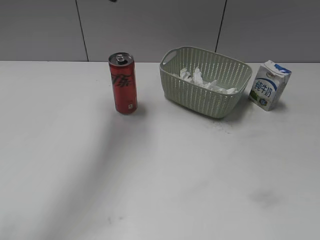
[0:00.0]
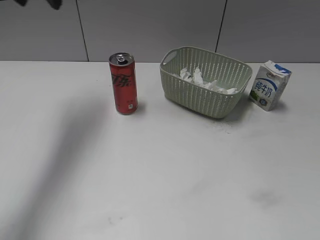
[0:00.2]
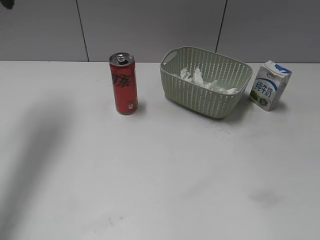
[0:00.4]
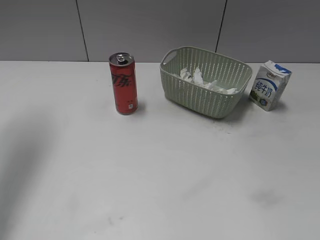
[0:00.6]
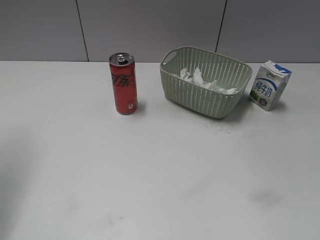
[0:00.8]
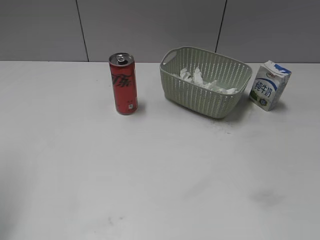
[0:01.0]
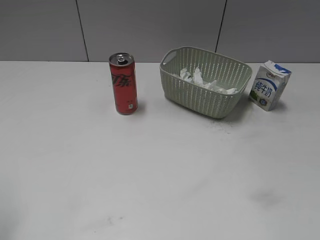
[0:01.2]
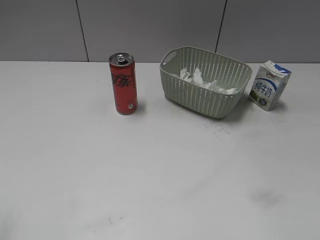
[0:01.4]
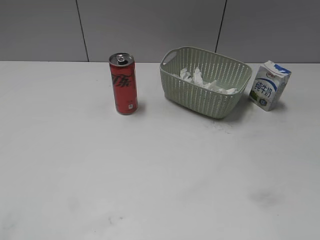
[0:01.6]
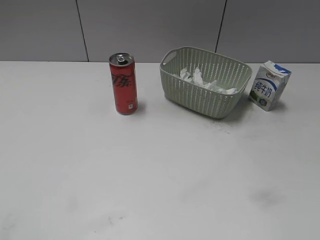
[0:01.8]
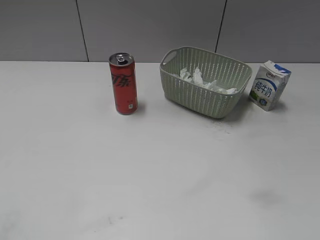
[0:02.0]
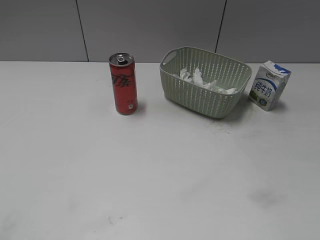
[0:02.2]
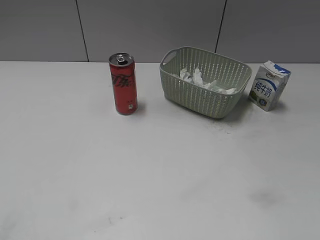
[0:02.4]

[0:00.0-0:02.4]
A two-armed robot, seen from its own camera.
0.0 to 1.2 s: The left gripper heads backward and to the left, covering some 30 cm.

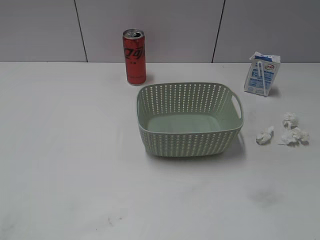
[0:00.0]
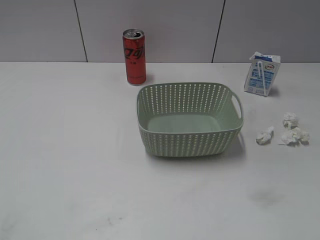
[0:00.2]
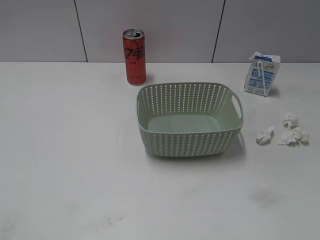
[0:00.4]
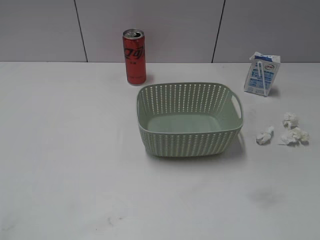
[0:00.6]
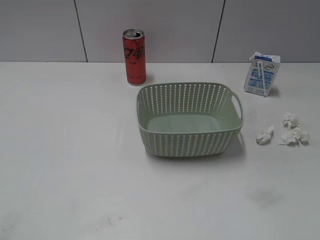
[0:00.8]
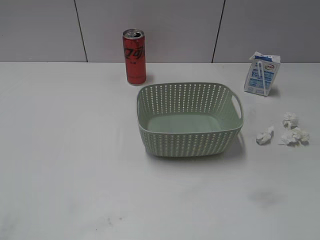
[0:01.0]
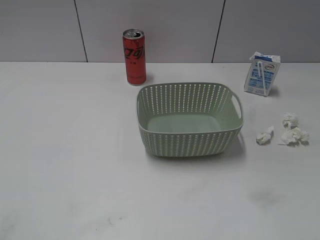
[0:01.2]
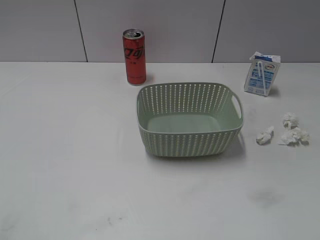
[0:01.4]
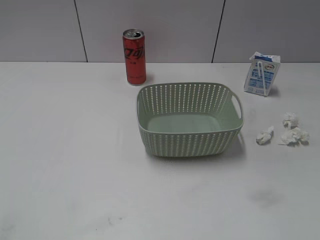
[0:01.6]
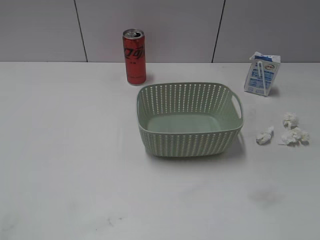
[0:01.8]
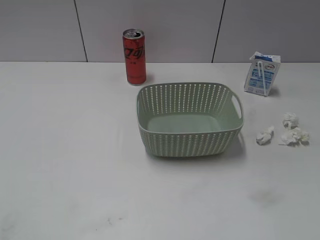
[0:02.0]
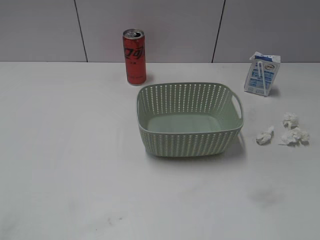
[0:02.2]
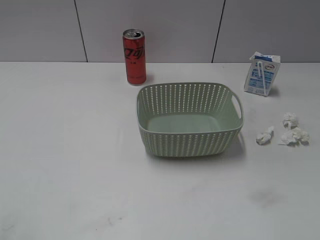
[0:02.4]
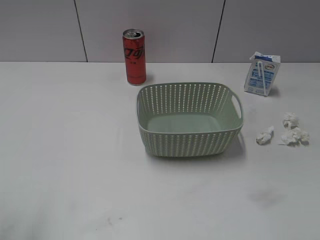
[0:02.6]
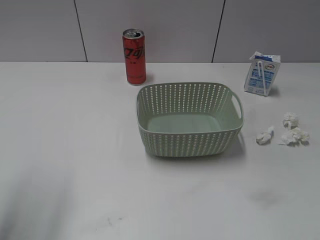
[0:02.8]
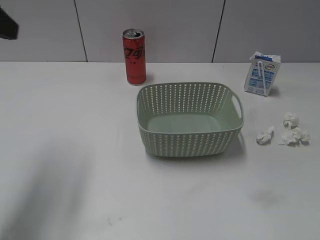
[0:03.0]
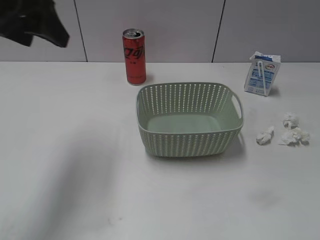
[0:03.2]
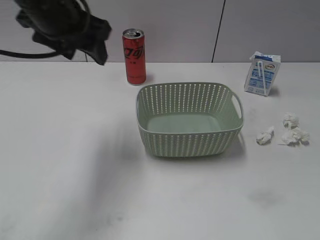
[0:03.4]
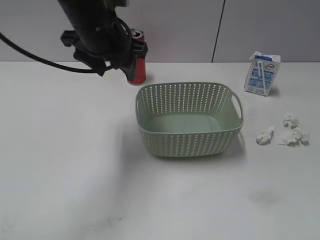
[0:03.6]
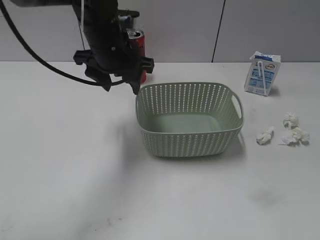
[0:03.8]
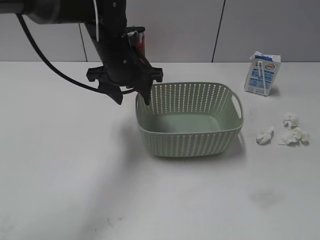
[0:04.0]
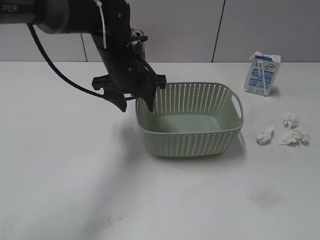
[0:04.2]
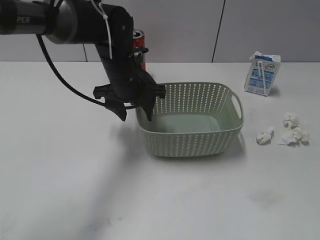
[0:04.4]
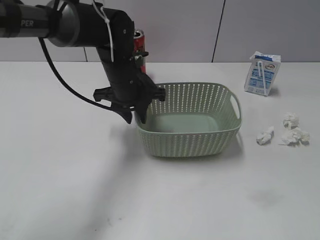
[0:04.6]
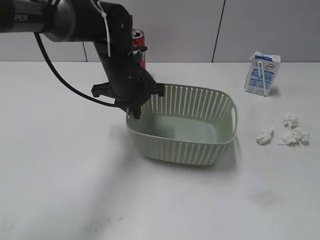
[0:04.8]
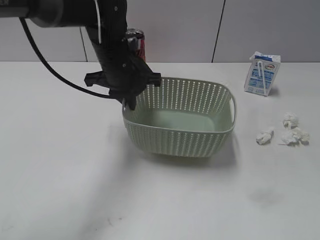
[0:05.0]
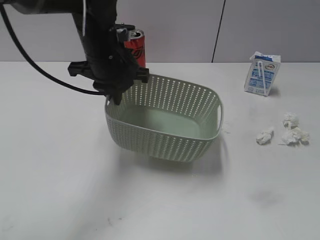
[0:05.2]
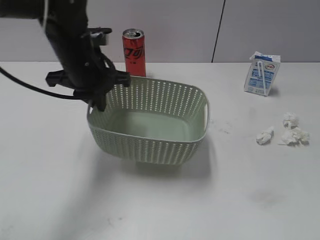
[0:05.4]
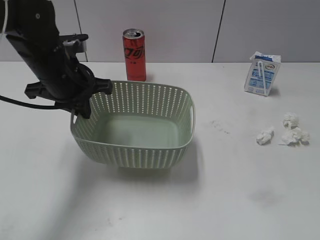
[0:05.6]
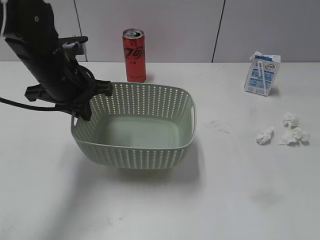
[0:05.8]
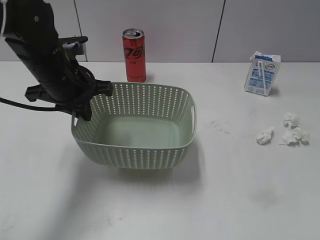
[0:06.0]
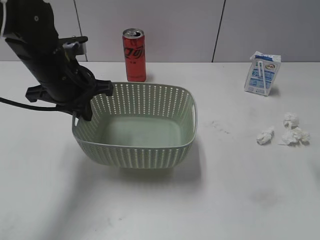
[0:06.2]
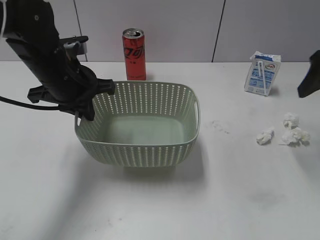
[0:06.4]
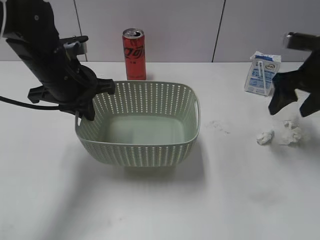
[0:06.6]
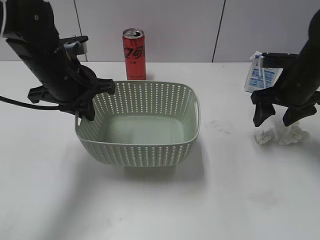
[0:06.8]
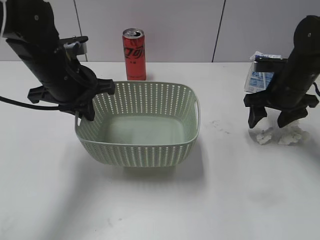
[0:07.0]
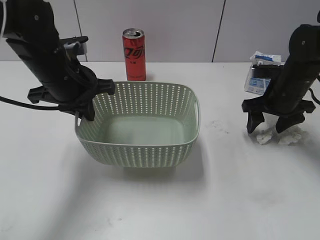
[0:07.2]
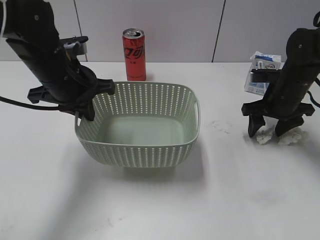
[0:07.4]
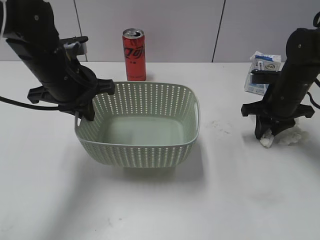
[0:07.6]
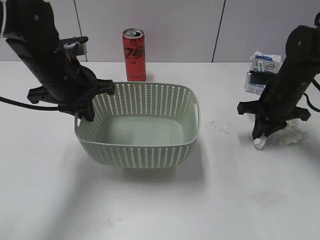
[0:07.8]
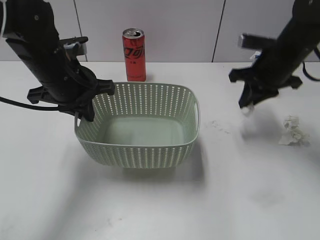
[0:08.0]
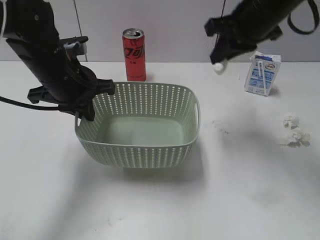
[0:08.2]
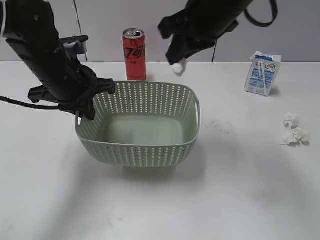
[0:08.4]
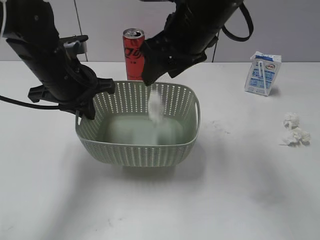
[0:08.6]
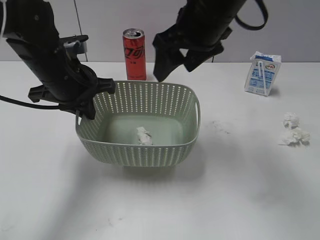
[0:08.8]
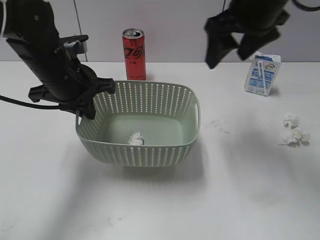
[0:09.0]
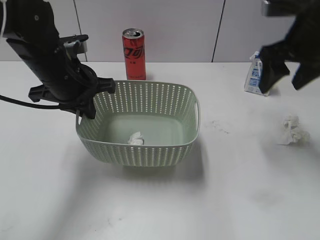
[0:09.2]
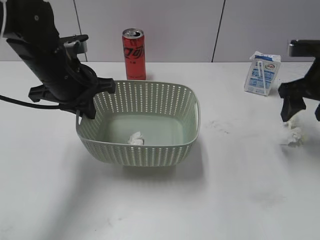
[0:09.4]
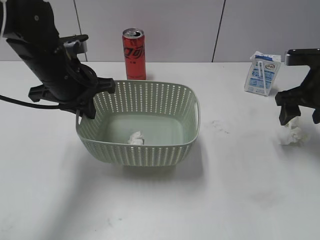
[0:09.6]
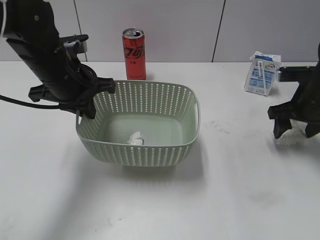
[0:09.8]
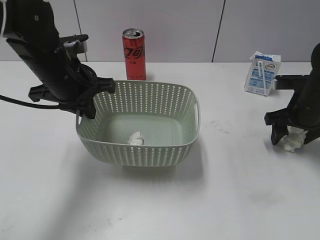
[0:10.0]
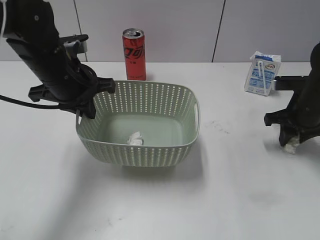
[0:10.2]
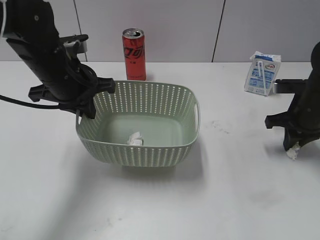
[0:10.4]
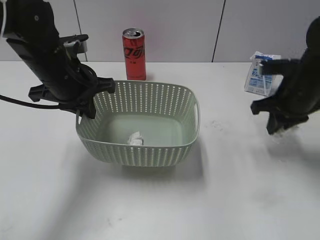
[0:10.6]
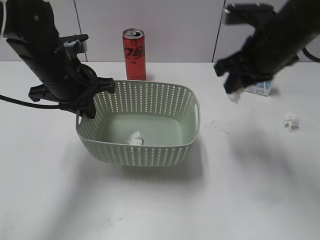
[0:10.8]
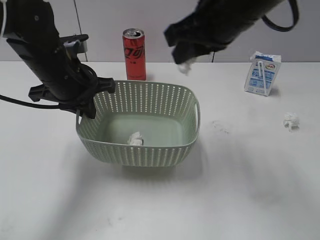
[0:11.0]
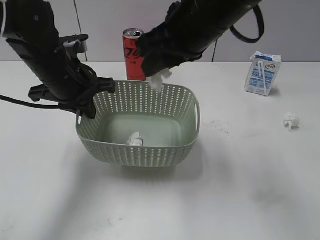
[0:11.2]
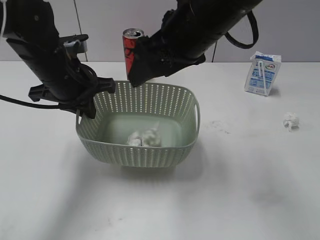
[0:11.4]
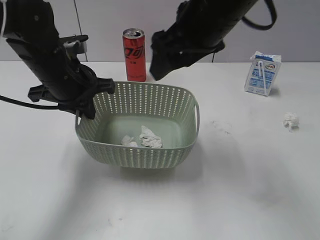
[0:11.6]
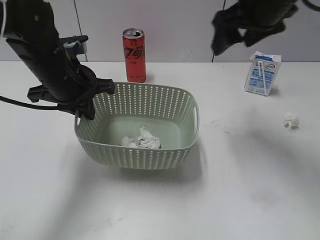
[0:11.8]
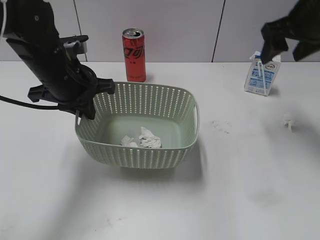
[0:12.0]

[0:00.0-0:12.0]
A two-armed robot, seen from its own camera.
Step, 3.0 to 4.8 s: Grasp the basket with left gripper.
Step, 5.0 to 5.6 s: Lift the basket with left gripper.
Step, 5.8 to 7.6 s: Grasp the waste paper with right gripper.
Step, 7.8 to 8.6 s: Place the waste paper in the basket with right gripper.
Step, 8.8 to 10.6 s: Grasp the waste paper with right gripper.
Step, 10.8 to 11.6 s: Place the waste paper in the basket with right gripper.
1.6 to 3.0 s: The left gripper goes some 25 cm forward.
3.0 to 4.4 s: The left gripper shifts roughly 30 cm to the right, downward and forward.
4.4 to 6.0 s: The right gripper is displaced forward by roughly 15 cm, while the left gripper shifts approximately 10 cm to the left and backward, and closes its fingers.
6.0 to 7.6 s: The right gripper shifts about 30 cm forward and downward, and closes.
7.6 to 9.0 s: The right gripper goes approximately 25 cm upward and to the left, and opens.
9.0 to 10.4 s: The right gripper shifts approximately 25 cm downward and to the right, and closes its fingers.
10.4 to 12.0 s: The right gripper heads upward, covering roughly 15 cm, moves approximately 25 cm to the left and comes back, and opens up.

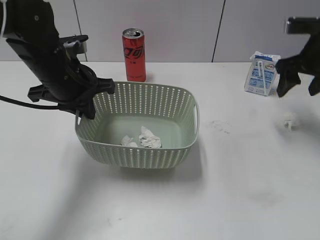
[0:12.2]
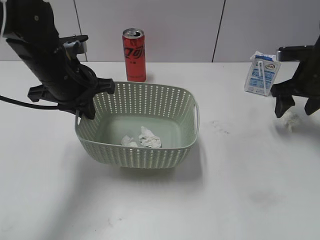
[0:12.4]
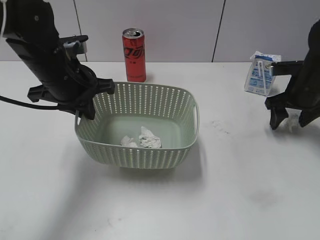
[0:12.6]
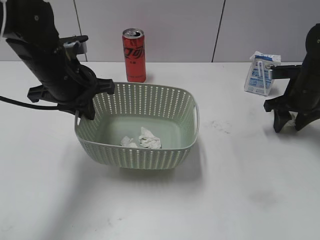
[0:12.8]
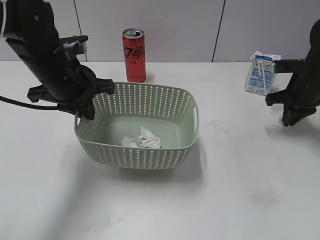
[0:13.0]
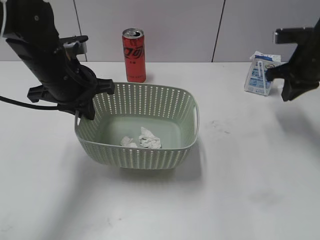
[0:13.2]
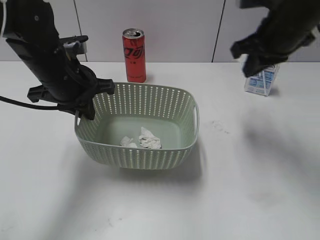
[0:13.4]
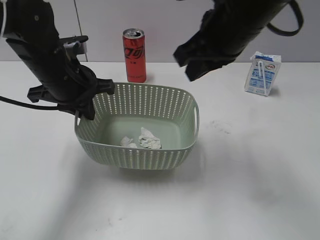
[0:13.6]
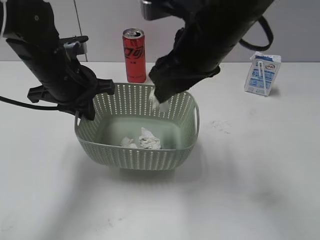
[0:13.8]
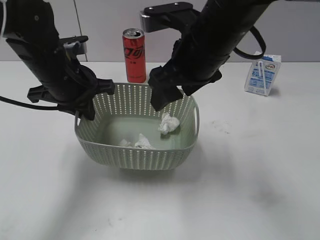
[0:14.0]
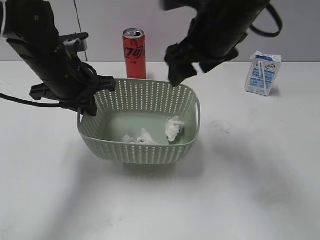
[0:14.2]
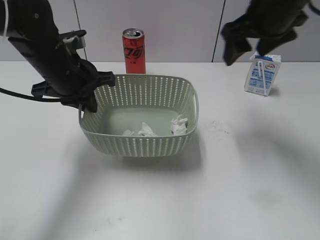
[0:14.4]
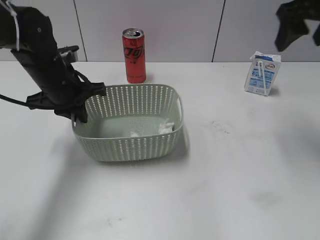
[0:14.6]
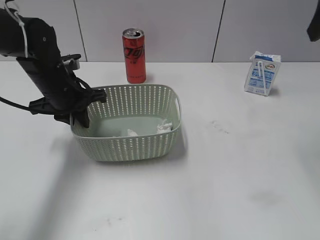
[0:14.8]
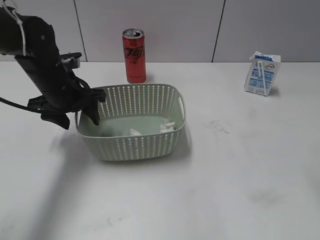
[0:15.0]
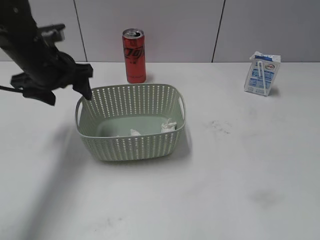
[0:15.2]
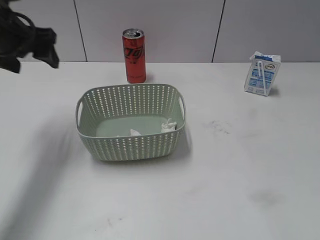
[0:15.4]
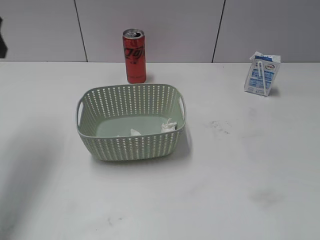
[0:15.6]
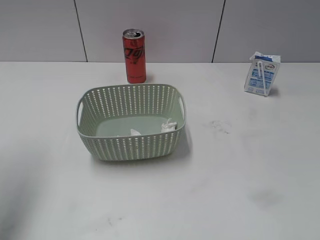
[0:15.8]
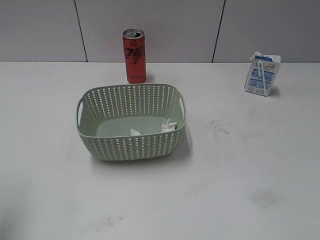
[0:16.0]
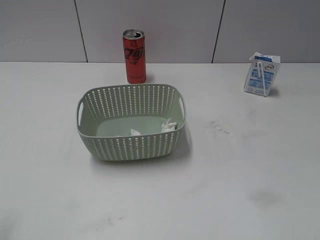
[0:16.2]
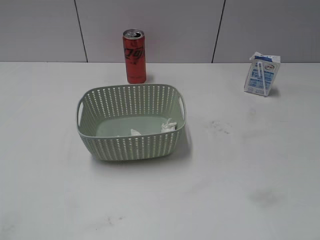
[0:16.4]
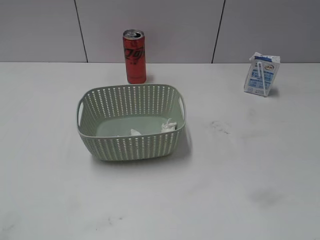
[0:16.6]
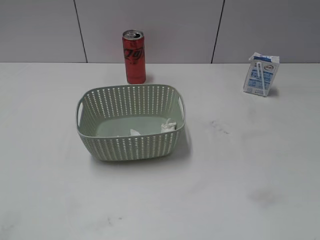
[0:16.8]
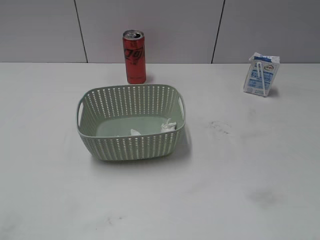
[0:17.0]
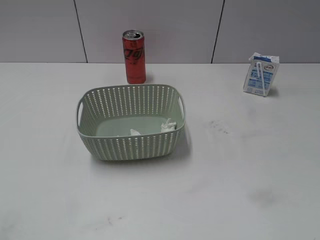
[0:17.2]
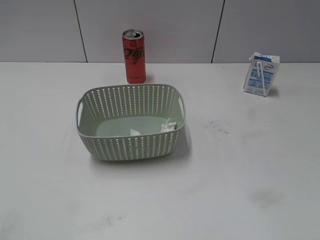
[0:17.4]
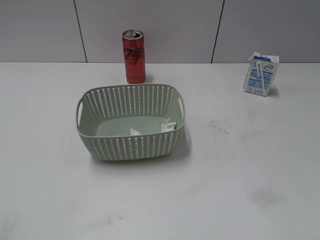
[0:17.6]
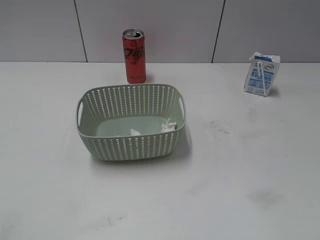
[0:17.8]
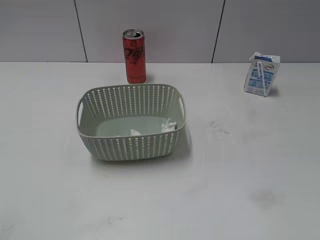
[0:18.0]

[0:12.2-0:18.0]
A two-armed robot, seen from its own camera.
Step, 12.2 to 13.0 s: Grasp the waste paper with right gripper.
Step, 13.2 to 14.0 s: Place the waste paper in the basket with right gripper.
Step, 14.2 to 15.0 s: Place the basket on the table with left gripper.
12.2 to 13.6 s: The right gripper is displaced to the left and backward by some 20 cm, and closes.
13.6 to 15.0 s: The right gripper travels to the right and upward by about 20 cm, and opens; the left gripper moves roughly 5 cm, and opens its fingers.
15.0 to 16.6 s: The left gripper heads backward and to the left, covering about 40 cm, while the right gripper moves backward, some 25 cm.

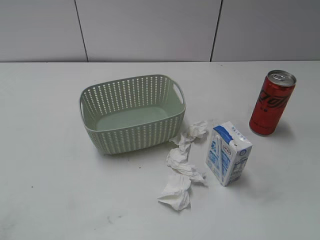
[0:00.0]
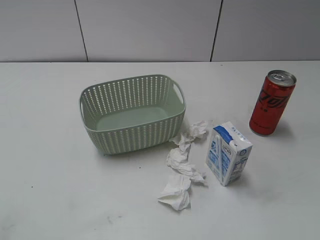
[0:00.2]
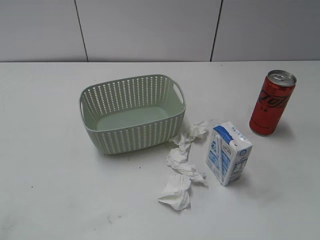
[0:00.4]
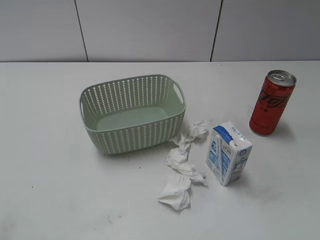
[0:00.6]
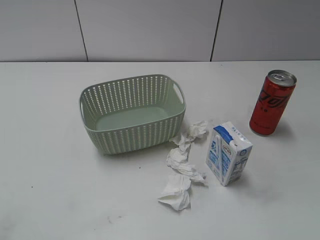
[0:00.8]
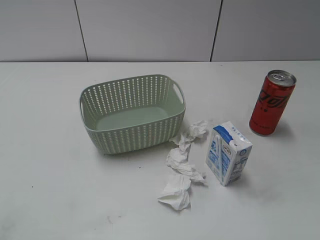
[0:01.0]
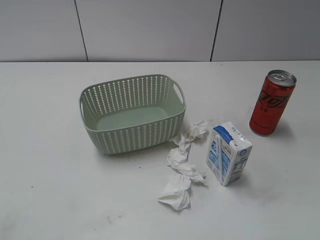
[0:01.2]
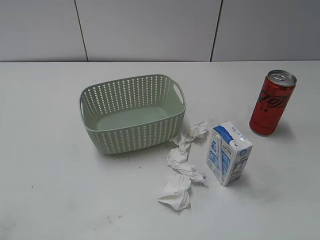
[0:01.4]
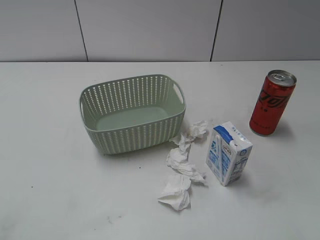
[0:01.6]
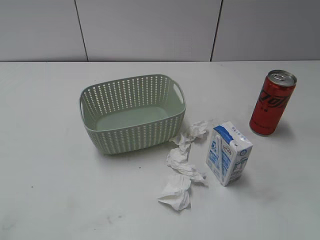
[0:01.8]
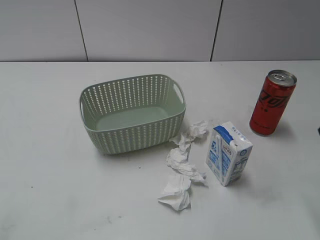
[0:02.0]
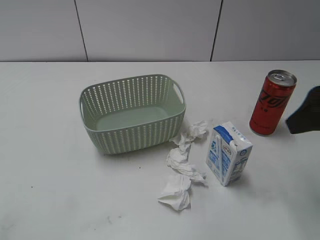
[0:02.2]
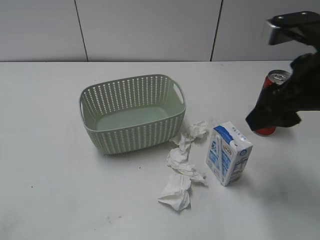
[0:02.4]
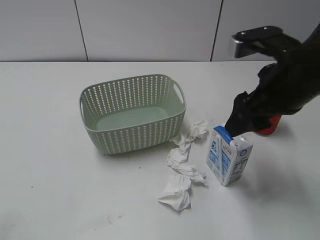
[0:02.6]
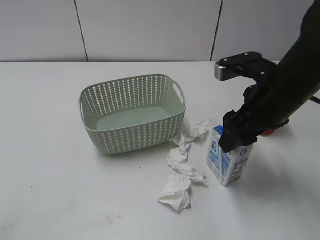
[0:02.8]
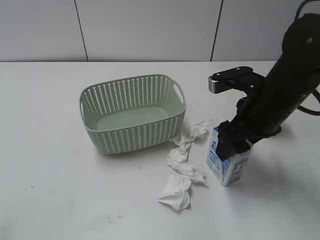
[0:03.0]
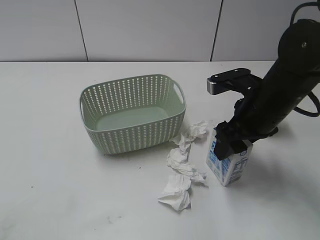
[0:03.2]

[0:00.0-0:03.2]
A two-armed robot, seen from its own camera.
1.6 to 3.2 s: The right gripper heads forward, to the left and downward, covering about 25 cm.
